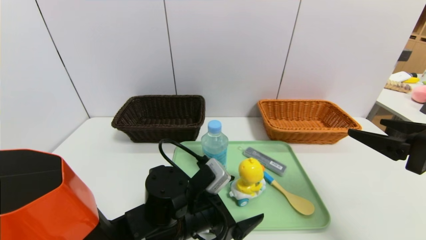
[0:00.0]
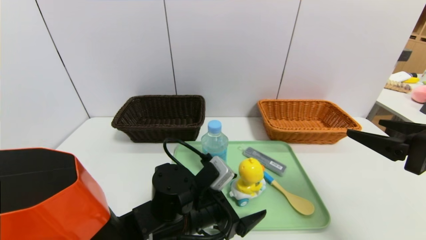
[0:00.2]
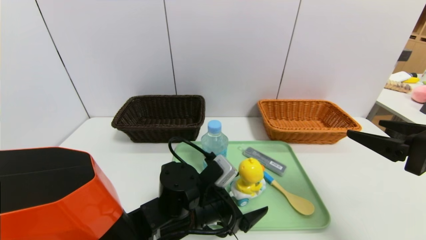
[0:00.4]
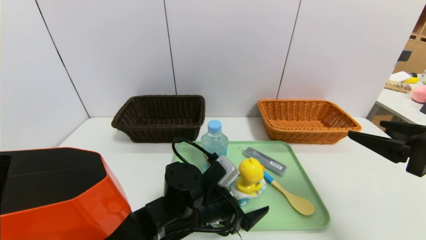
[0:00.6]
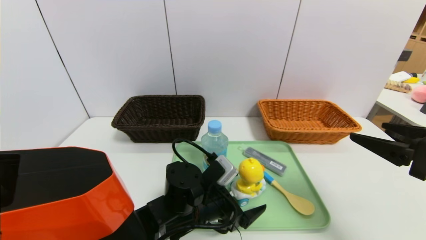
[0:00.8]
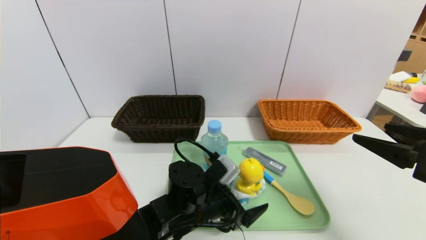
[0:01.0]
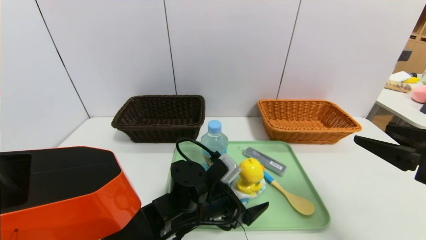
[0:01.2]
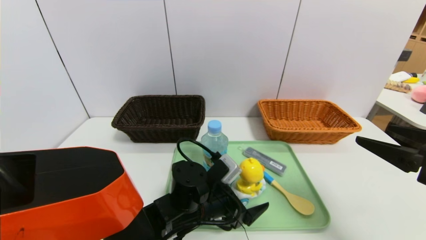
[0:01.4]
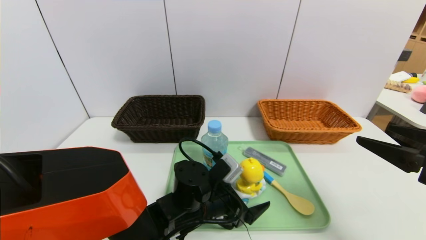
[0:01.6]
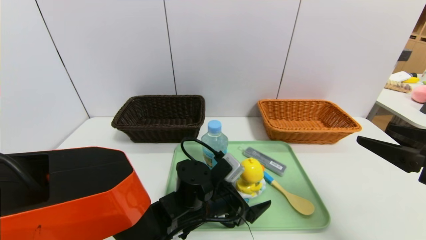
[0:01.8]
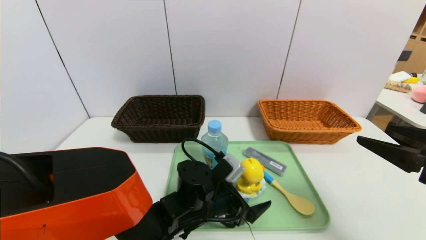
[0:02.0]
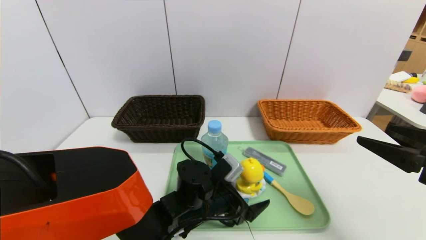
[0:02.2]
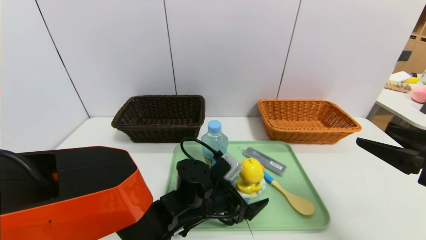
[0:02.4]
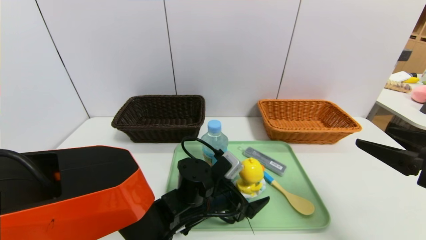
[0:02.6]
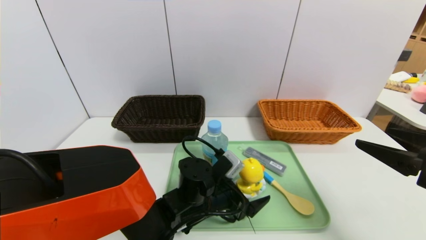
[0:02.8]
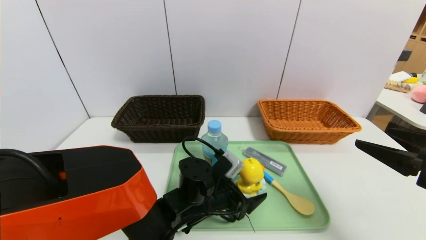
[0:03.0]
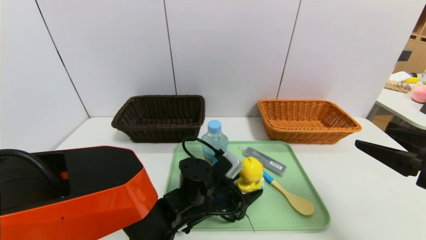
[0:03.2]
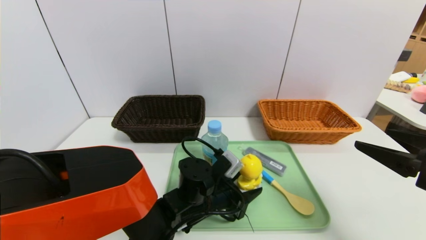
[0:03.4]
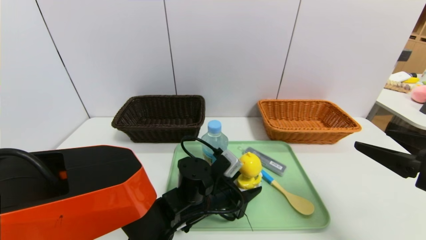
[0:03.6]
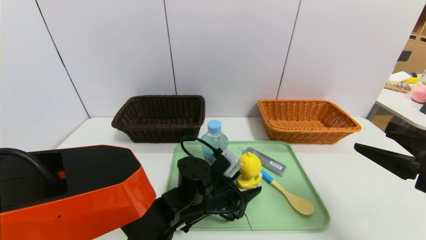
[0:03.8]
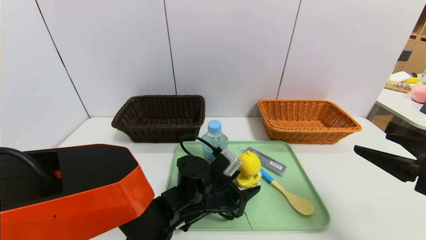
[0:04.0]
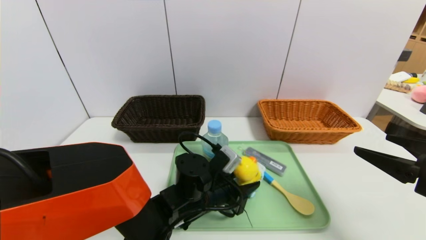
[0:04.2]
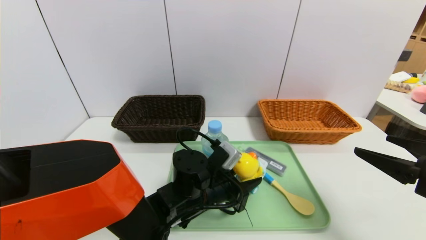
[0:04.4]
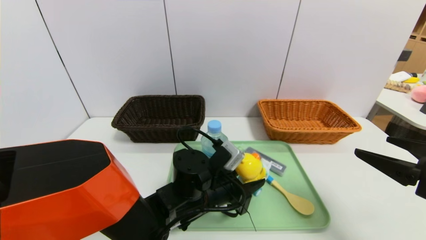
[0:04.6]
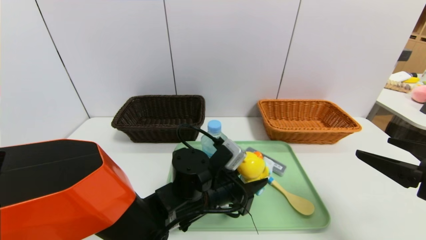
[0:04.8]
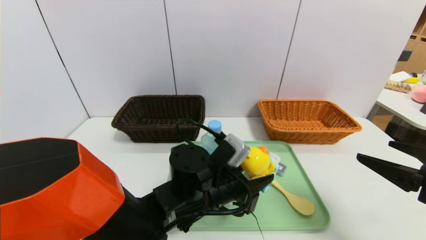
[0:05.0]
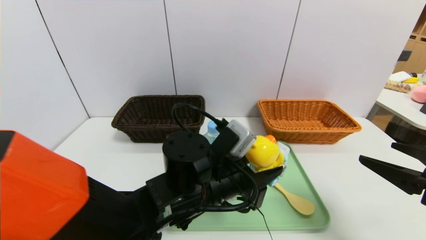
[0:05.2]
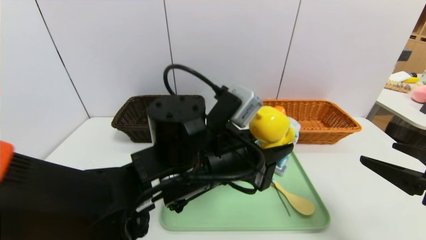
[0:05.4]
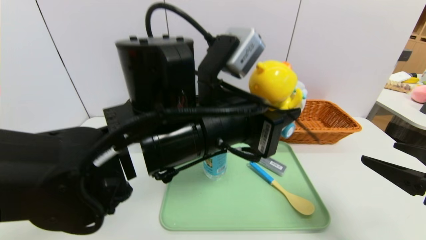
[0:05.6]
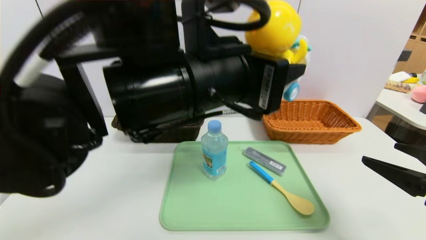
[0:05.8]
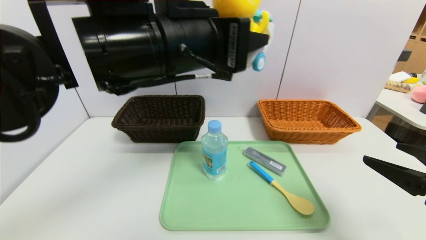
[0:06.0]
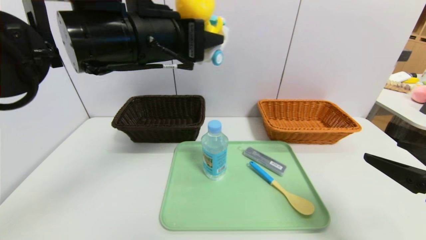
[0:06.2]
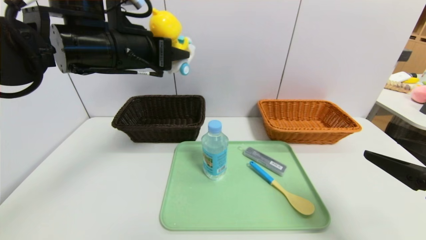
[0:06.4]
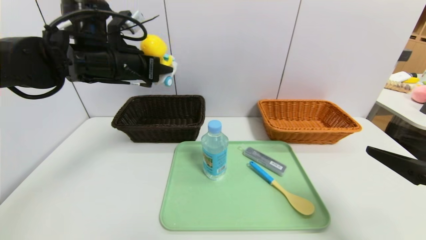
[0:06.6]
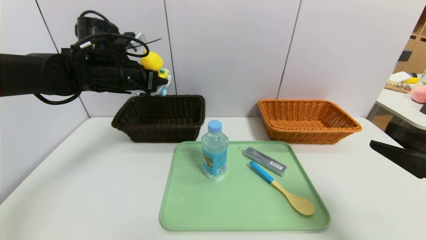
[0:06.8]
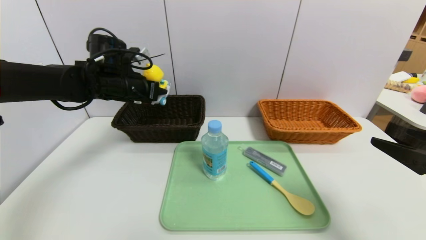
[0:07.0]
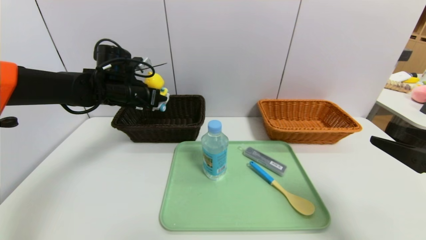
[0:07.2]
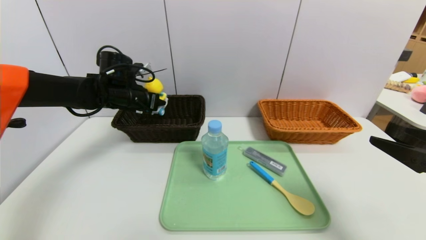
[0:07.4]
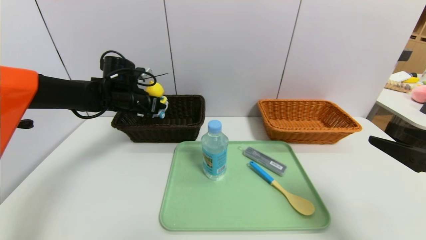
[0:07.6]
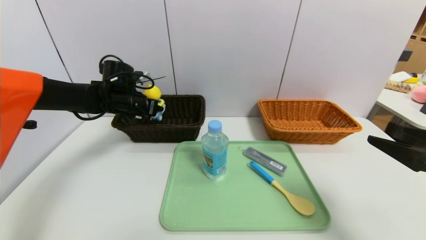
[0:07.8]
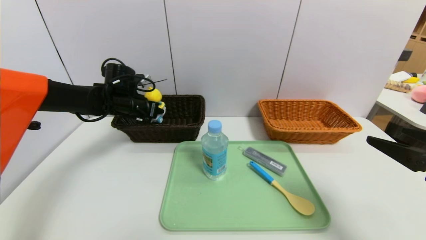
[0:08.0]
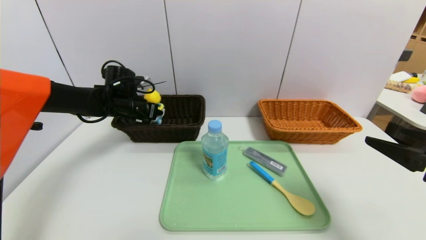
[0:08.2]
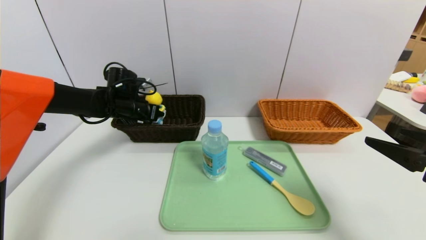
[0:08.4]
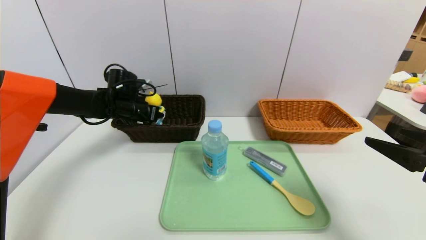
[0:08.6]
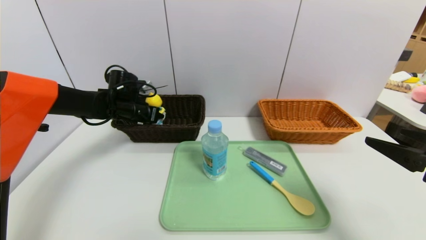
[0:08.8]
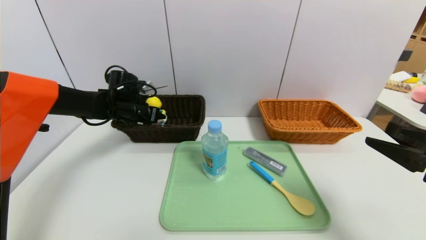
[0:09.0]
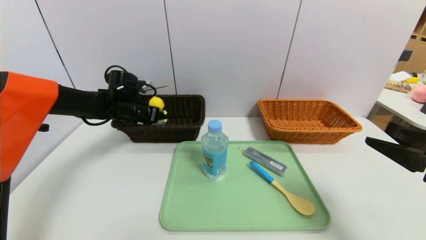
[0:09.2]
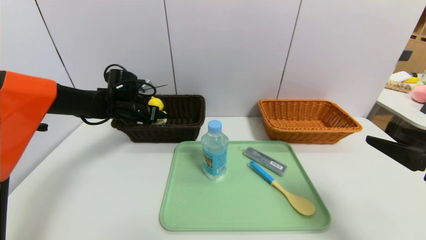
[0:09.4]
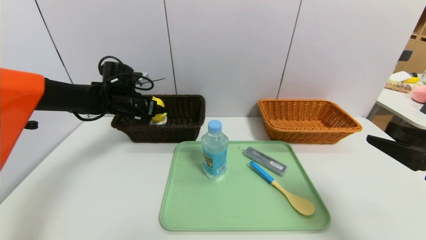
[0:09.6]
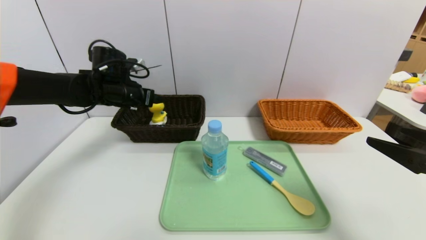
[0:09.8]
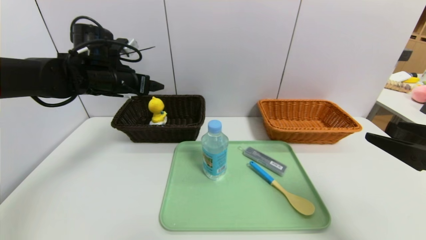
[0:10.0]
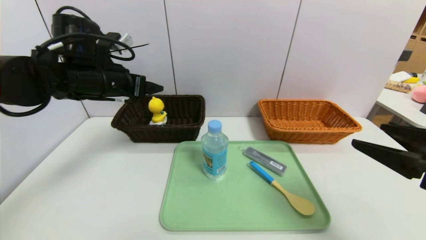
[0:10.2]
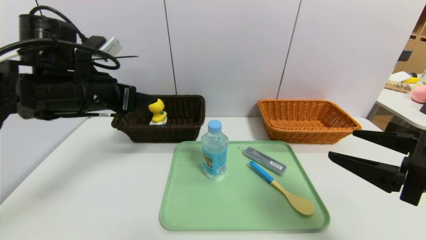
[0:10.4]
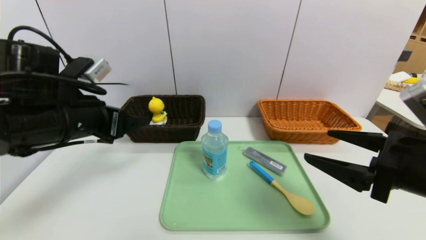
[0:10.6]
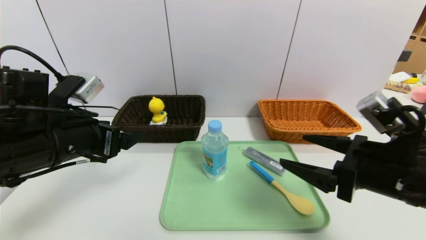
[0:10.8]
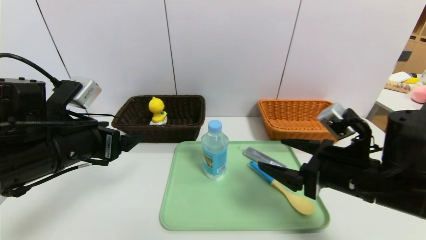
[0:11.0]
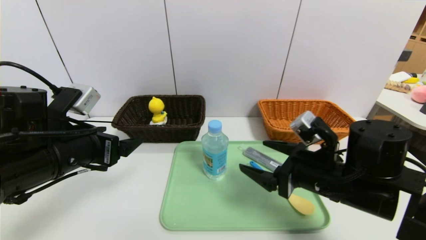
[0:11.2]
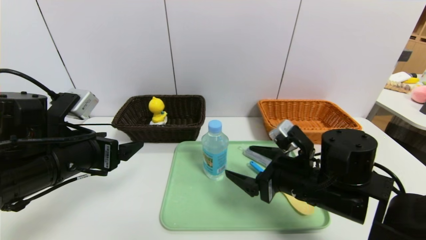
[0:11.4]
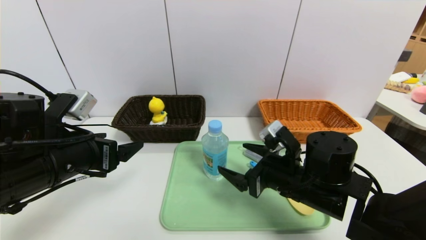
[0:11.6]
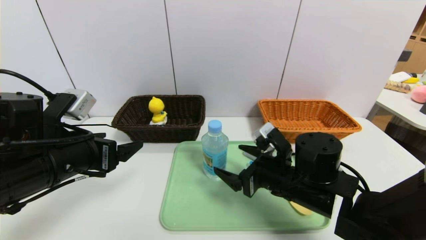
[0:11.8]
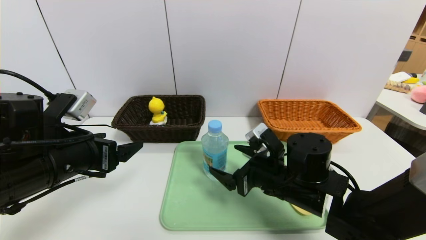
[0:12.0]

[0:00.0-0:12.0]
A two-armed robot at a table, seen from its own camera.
Task of the whole recording: place the food in the right basket with the right gripper, and place the non food items in the left basket with the left gripper.
Step, 0:00.0 to 0:10.2: Grasp the duck toys and put it in the left basket.
0:00.0 to 0:01.6: The left gripper changes place by some 5 cm.
0:01.6 to 0:03.0: The left gripper closes up.
0:03.0 to 0:04.4: The left gripper closes up.
0:04.4 to 0:06.0: The left gripper goes about 25 cm upward.
0:06.0 to 0:07.6: The left gripper shifts approximately 30 cm forward, downward and to the left.
0:07.6 to 0:09.0: The left gripper opens up.
0:09.0 to 0:10.4: The left gripper goes some 20 cm backward and upward, and opens up.
0:10.4 to 0:12.0: The left gripper goes approximately 10 cm backward and downward, while the right gripper heads to the left, downward and forward, covering some 20 cm.

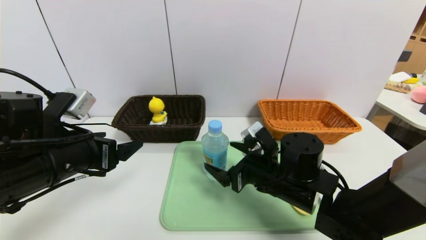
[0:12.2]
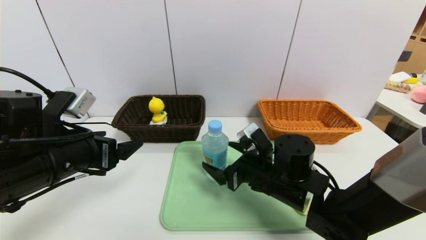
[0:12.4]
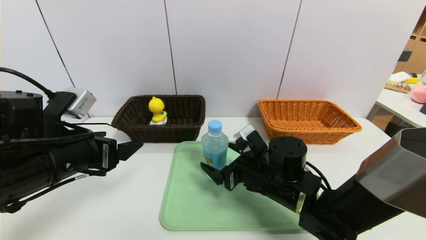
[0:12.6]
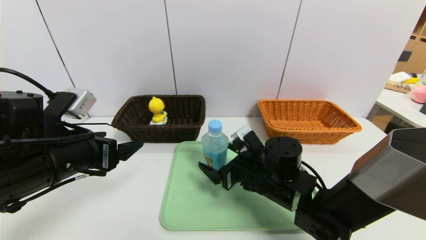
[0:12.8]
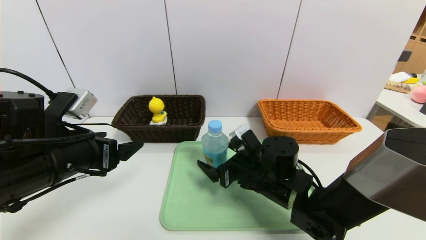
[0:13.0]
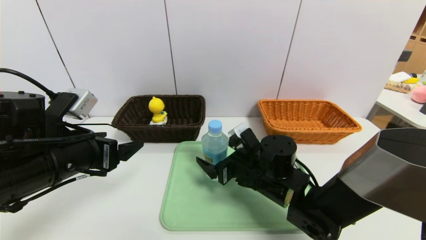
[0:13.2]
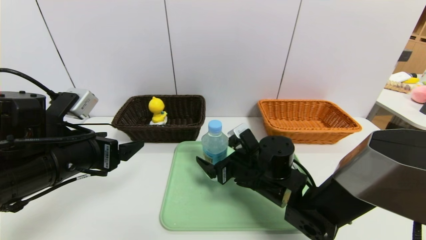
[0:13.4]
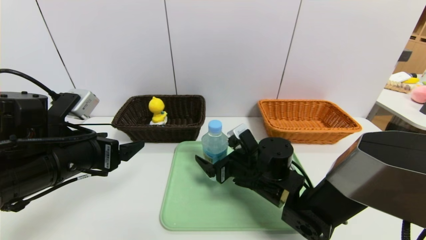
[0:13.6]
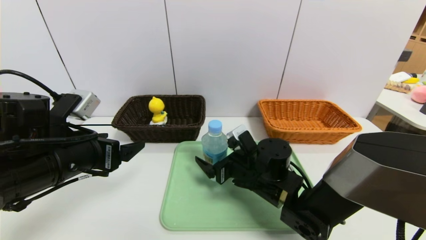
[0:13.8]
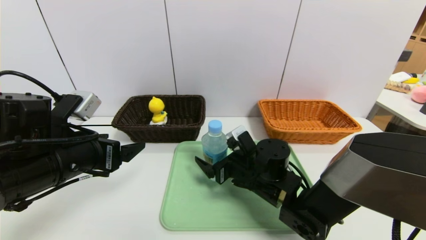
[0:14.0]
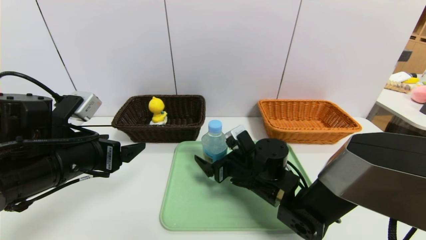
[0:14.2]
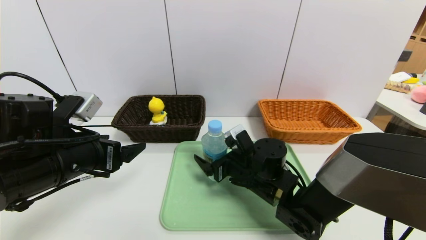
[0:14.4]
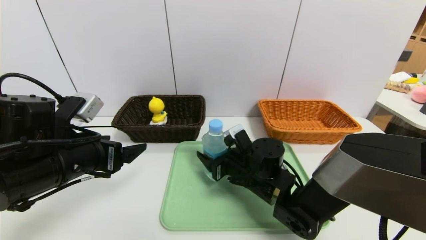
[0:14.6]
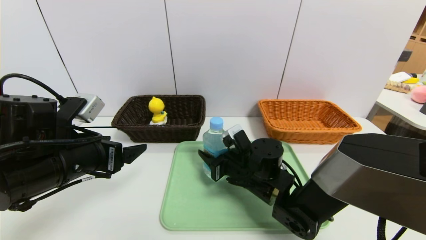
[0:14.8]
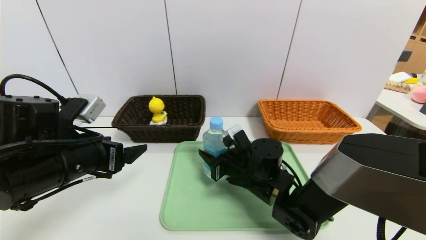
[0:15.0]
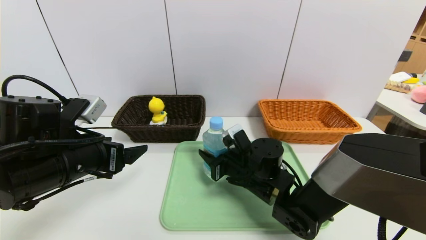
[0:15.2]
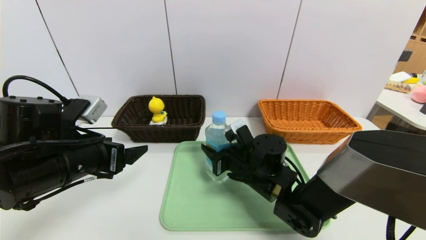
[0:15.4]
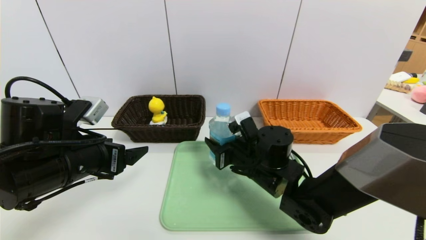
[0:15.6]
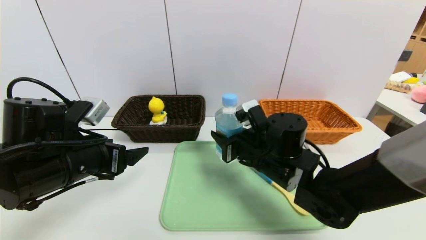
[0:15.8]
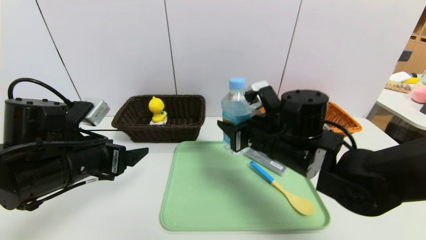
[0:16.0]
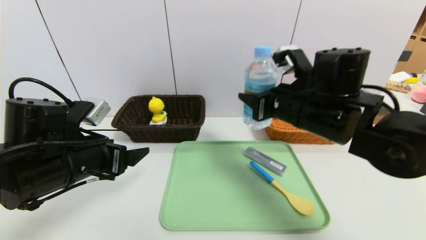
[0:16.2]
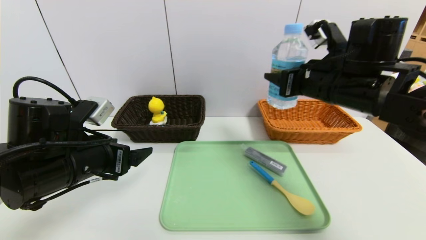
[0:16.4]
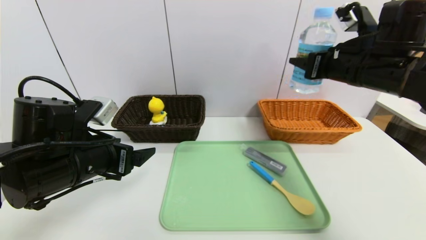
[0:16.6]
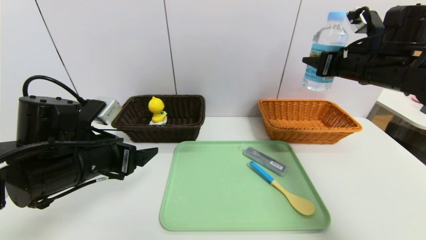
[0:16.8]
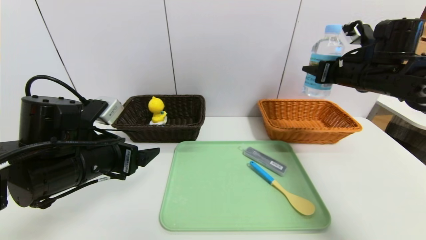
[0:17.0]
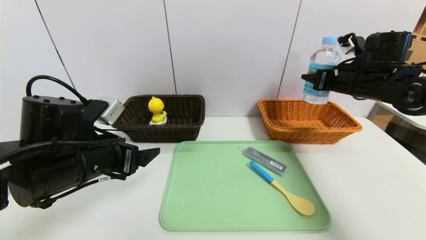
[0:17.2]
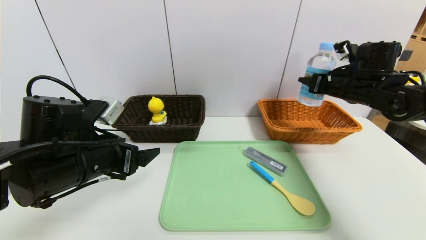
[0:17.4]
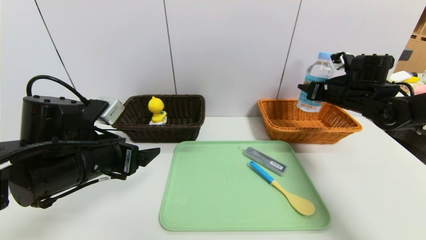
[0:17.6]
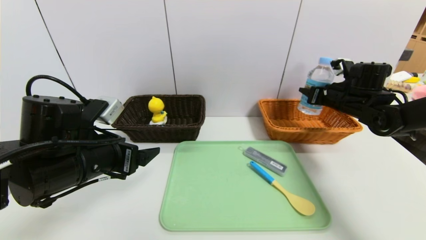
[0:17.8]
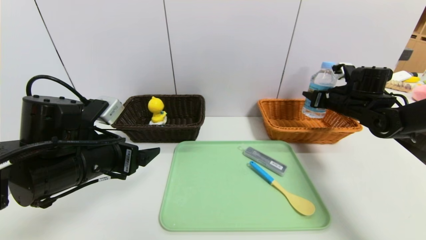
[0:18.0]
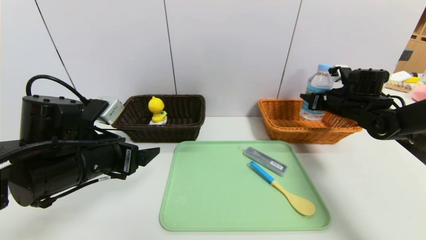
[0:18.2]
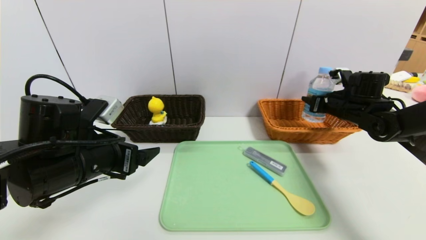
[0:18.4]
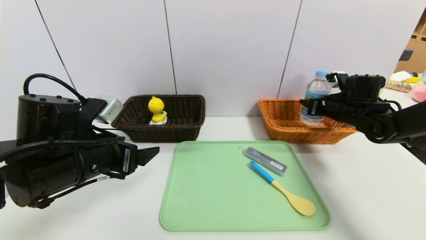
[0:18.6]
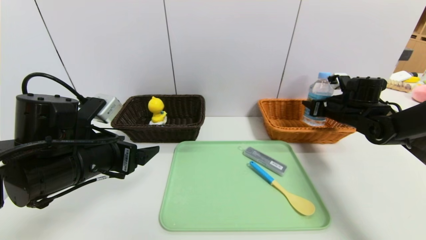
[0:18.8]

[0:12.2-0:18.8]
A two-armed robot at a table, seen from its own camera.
Task of the whole recording: place the food in the right basket with the right gripper, and place the non food items in the left basket with the left gripper.
0:12.2 to 0:13.8: The right gripper shifts by about 5 cm.
0:13.8 to 0:15.4: The right gripper closes up.
0:15.4 to 0:17.2: The right gripper is displaced to the right and upward by roughly 30 cm.
0:17.2 to 0:18.8: The right gripper goes about 10 cm downward.
